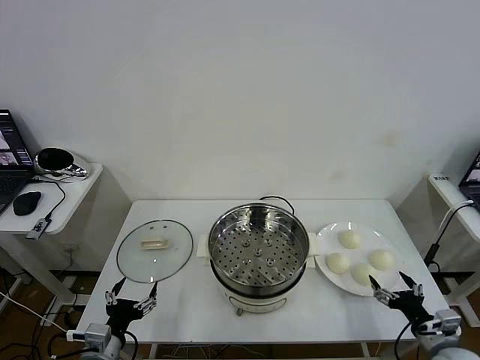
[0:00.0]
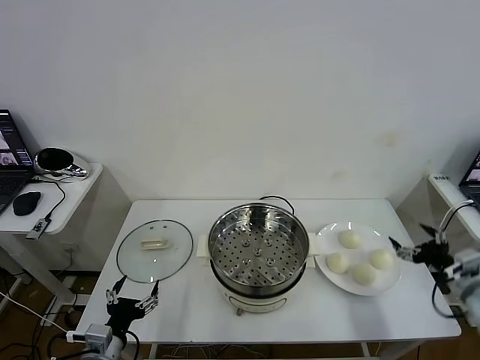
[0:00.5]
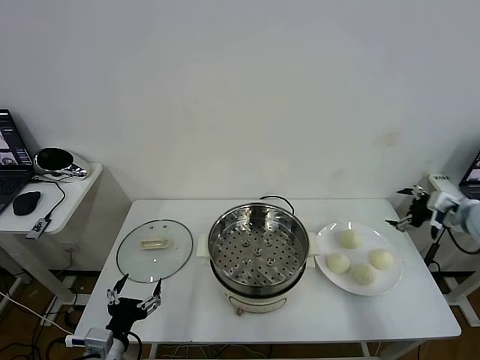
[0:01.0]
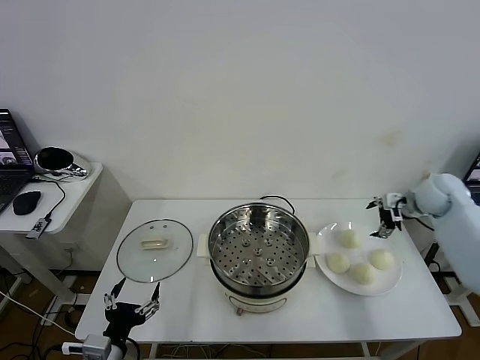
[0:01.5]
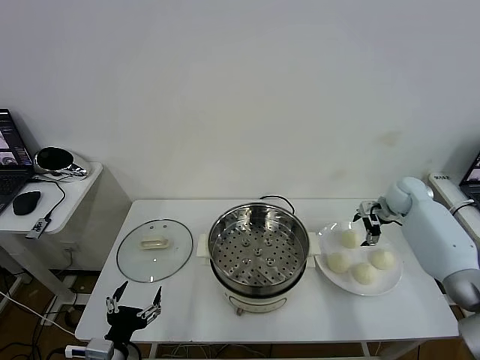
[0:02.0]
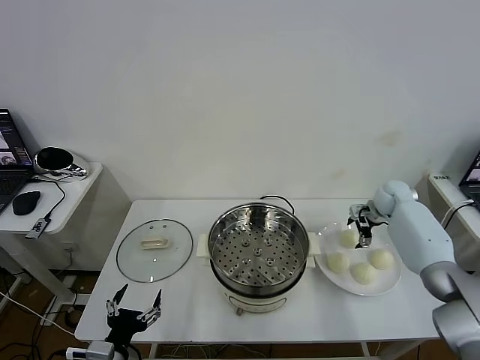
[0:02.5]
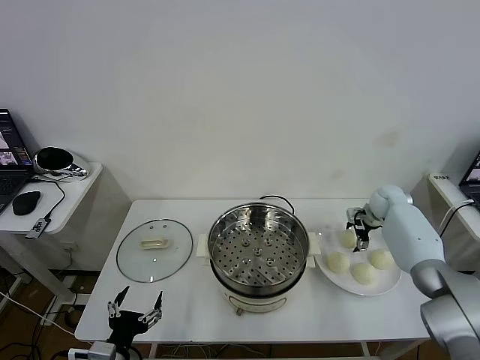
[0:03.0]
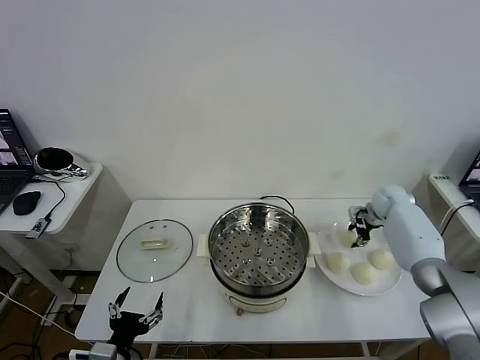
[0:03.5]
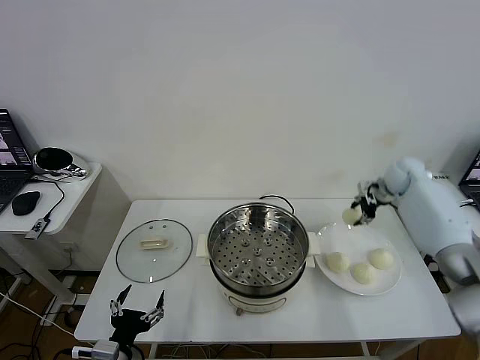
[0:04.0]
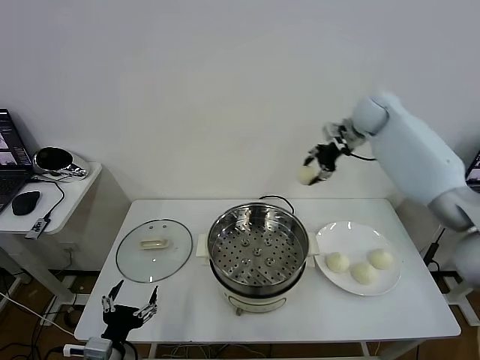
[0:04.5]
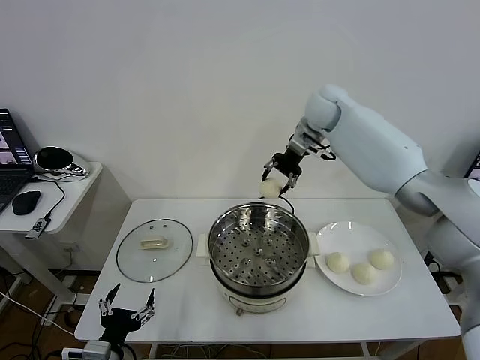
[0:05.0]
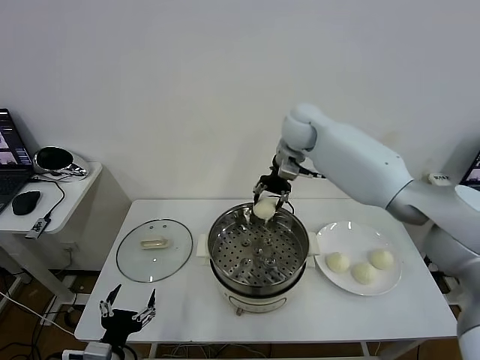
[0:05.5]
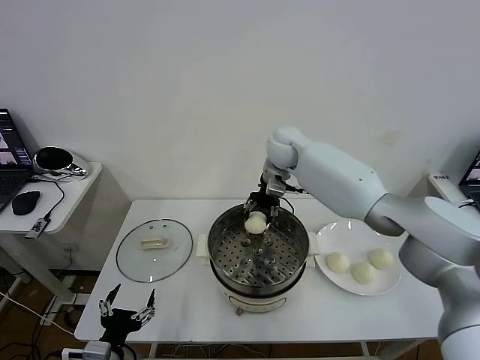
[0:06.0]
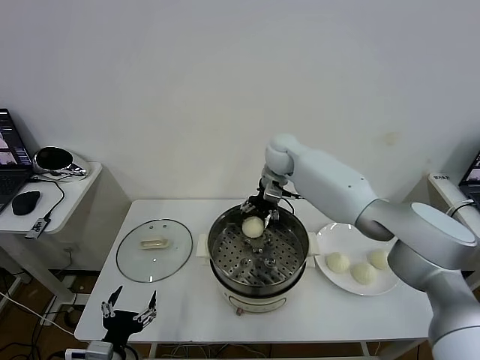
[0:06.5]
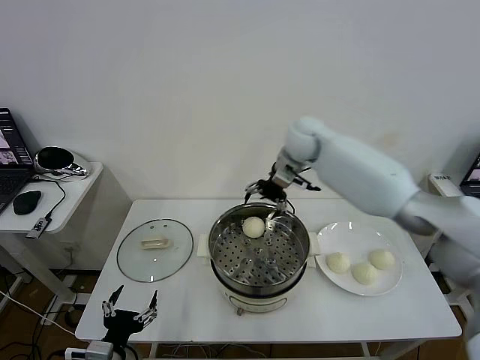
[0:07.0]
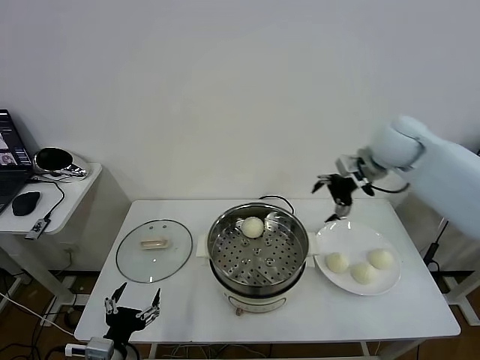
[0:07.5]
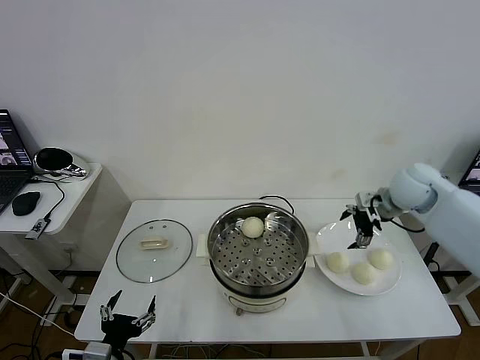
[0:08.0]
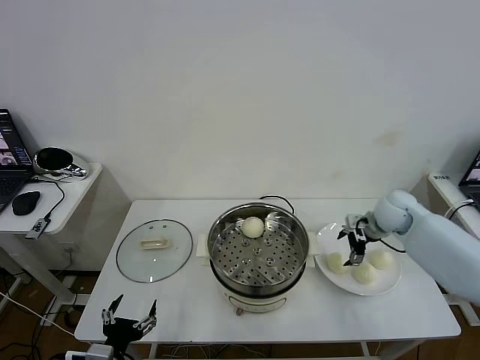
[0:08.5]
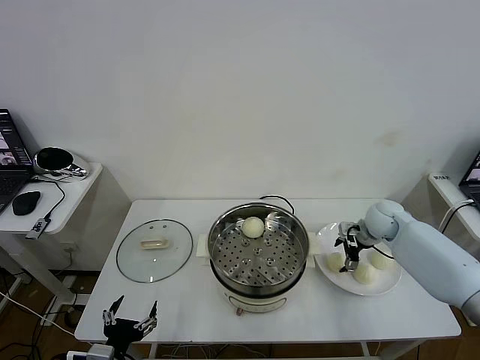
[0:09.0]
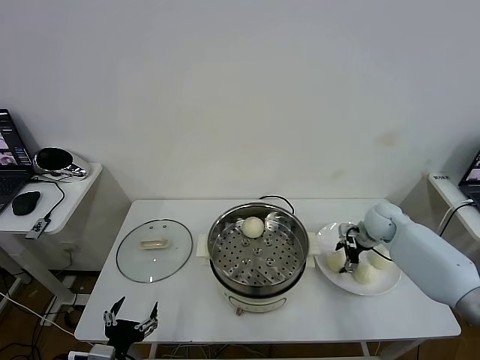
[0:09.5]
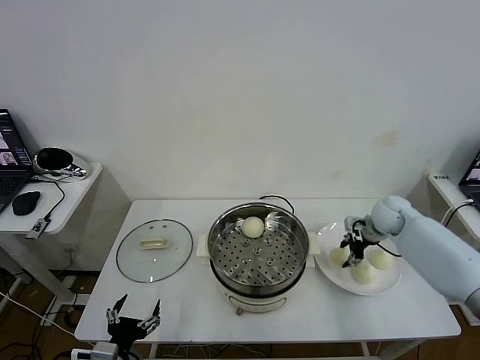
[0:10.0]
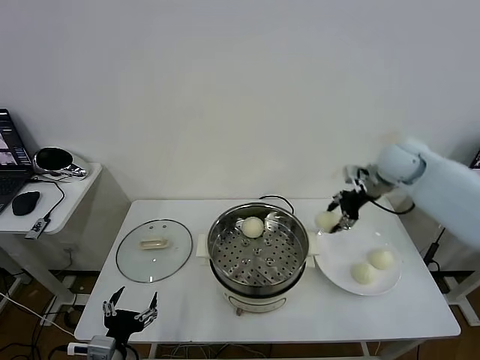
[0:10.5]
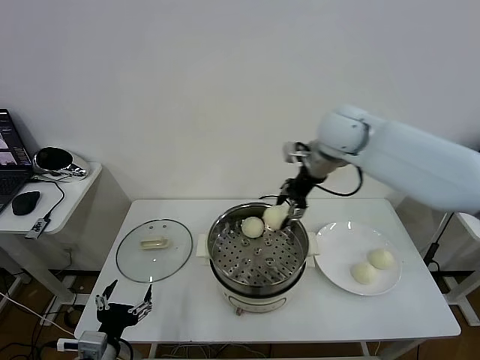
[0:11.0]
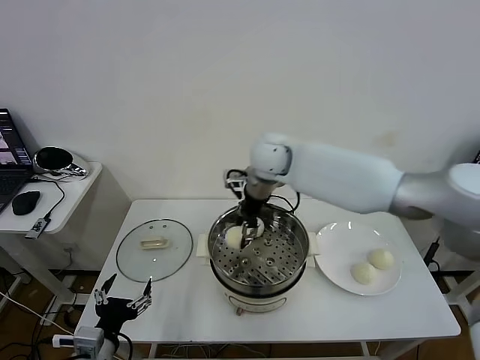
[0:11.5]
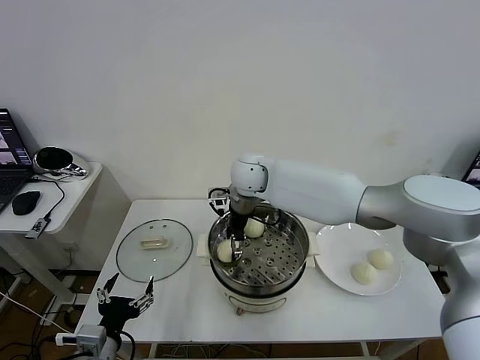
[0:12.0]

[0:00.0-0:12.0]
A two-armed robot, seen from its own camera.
Task of the whole recording: take steamed baozi put them in steamer then cover it.
Step, 0:00.0 to 0:03.5: Grasp the baozi in the plate with right gripper.
Step, 0:04.0 to 0:06.5: Place the baozi on the steamer with right gripper.
Step, 0:07.0 to 0:09.5: Grasp the baozi in the plate with right gripper.
0:02.0 to 0:04.0: The right gripper moves upward, approximately 10 cm, and closes its fingers.
0:04.0 to 0:06.0: The right gripper heads to the left, covering roughly 30 cm.
0:06.0 to 0:08.0: The right gripper goes approximately 30 cm to the right and backward, and opens.
0:08.0 to 0:10.0: The right gripper is displaced downward by about 5 cm, and closes.
0:10.0 to 0:12.0: The right gripper goes approximately 35 cm to the left, and opens.

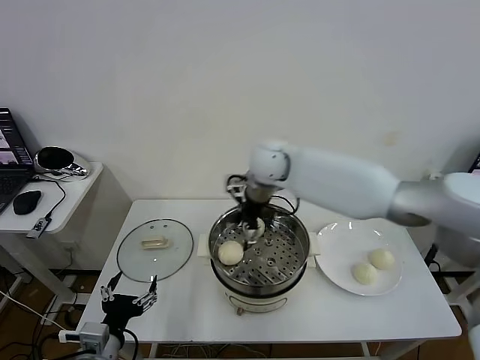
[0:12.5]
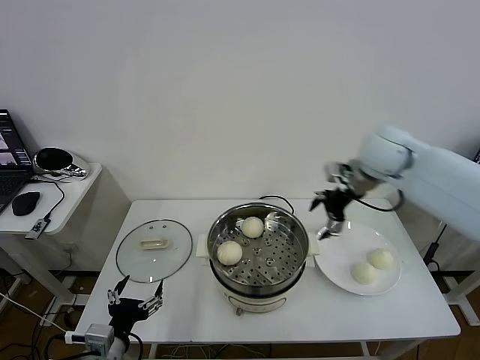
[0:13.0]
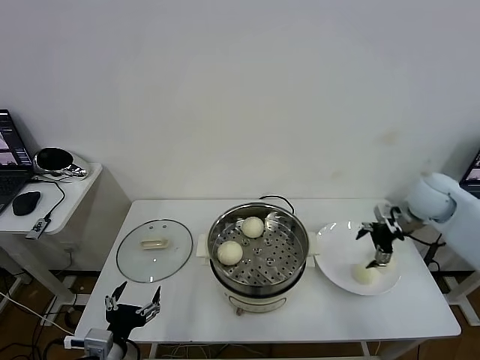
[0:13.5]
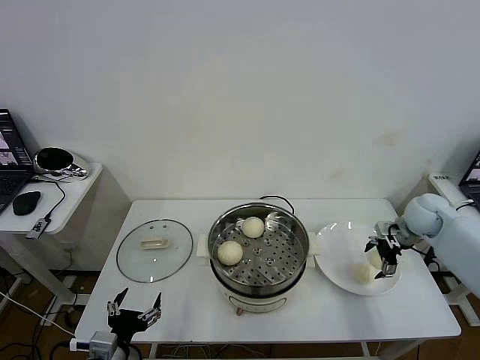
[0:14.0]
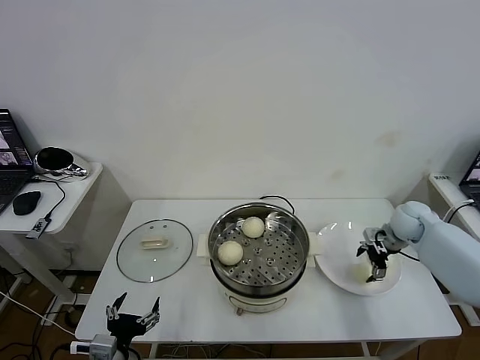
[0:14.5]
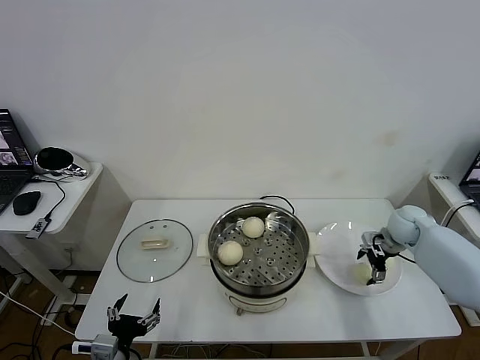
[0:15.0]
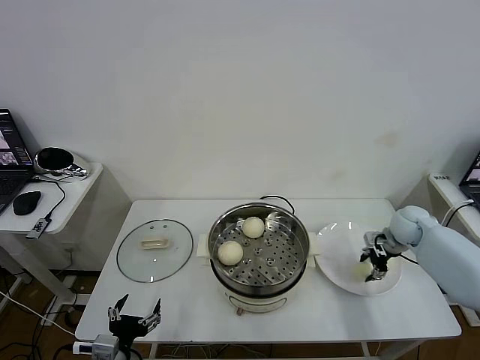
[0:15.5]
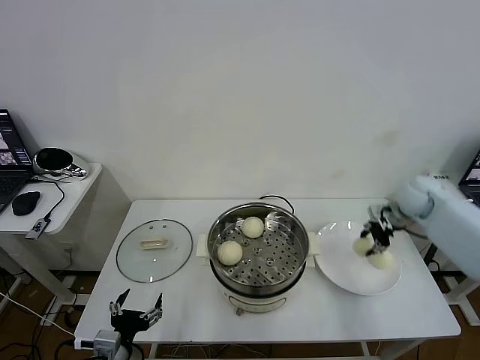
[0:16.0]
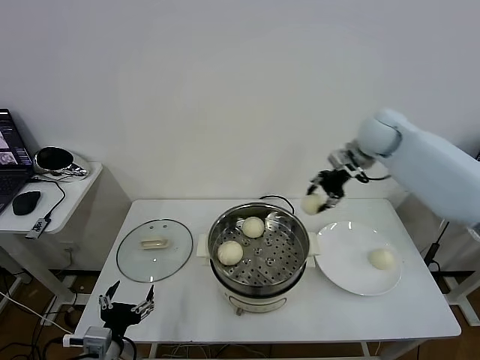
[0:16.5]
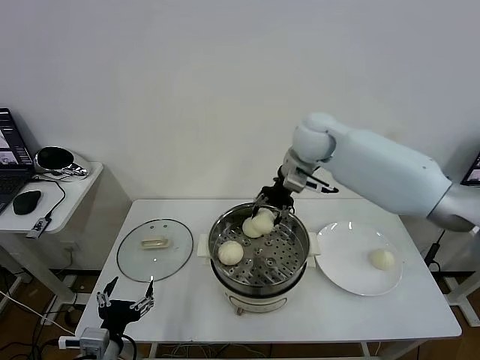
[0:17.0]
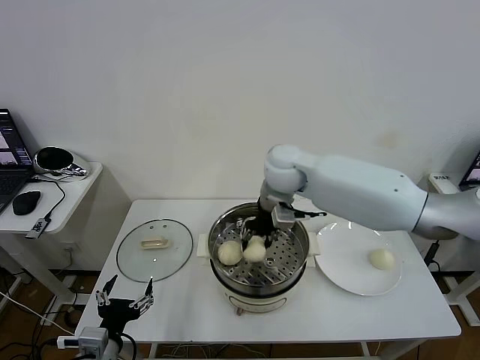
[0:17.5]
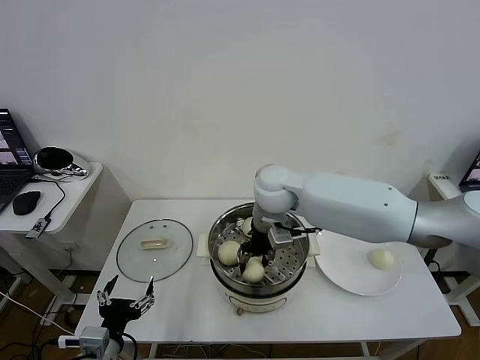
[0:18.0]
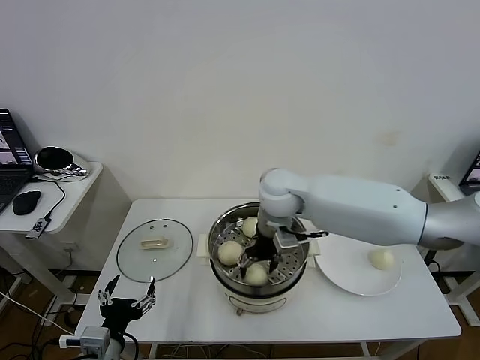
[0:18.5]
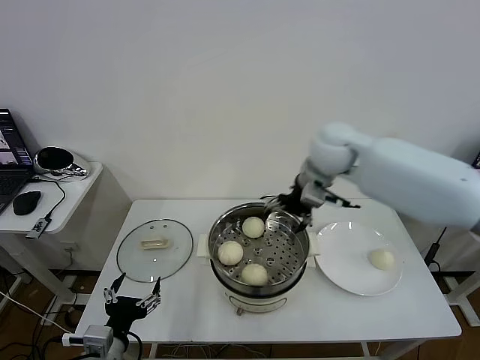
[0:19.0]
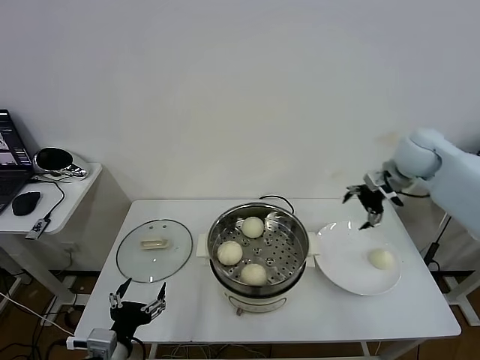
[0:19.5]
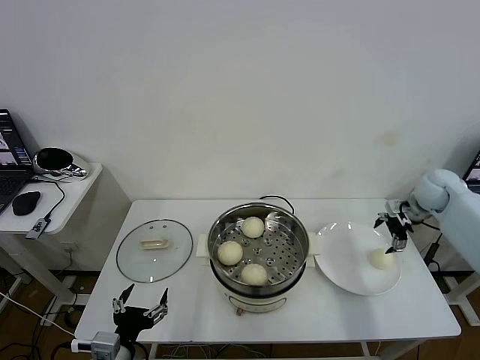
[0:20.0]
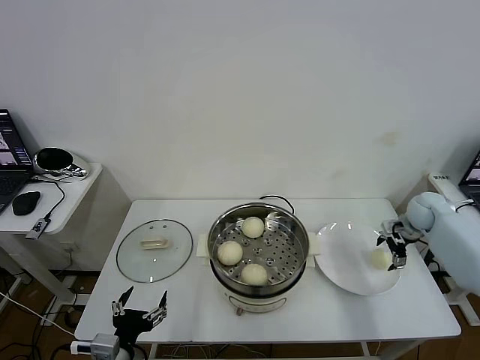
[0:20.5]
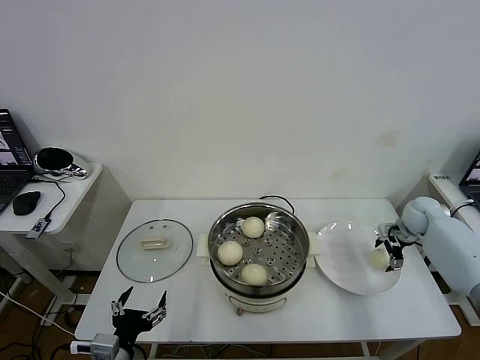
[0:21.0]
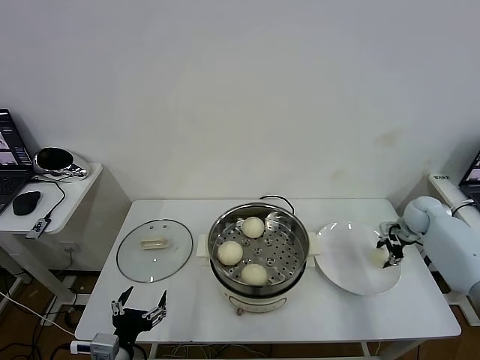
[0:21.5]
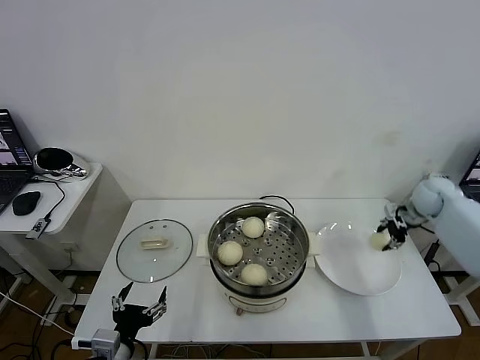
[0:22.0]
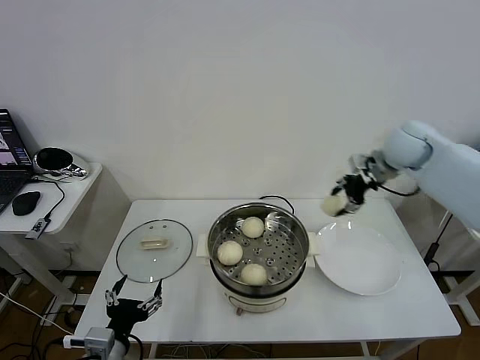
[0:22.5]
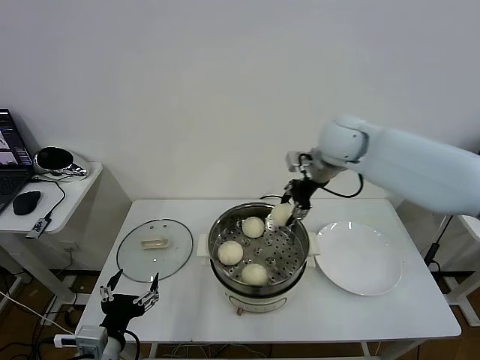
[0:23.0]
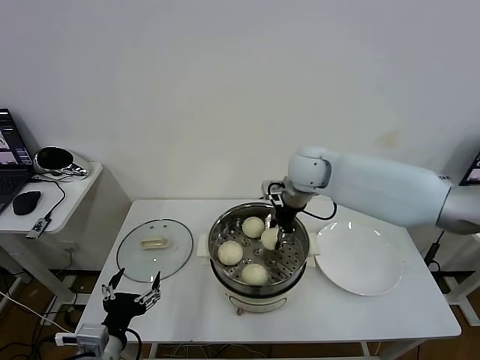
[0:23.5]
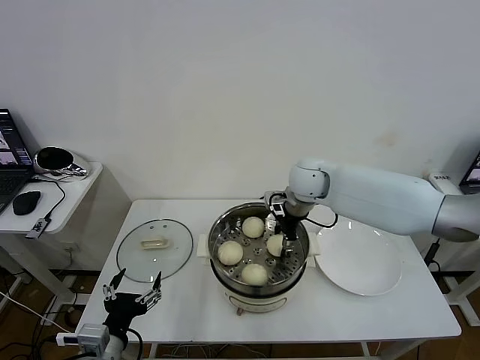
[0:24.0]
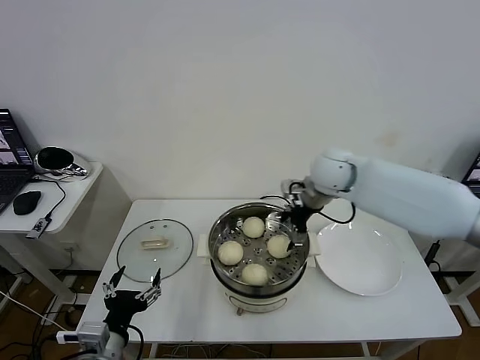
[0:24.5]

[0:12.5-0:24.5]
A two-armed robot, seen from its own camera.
Task of the whole recording: take steamed baozi put them in steamer then cover it.
Step, 0:12.5 to 0:15.5: Grasp the baozi in the plate with right gripper.
Step, 0:16.0 to 0:18.5: Place the baozi on the steamer with right gripper.
Step, 0:19.0 to 0:21.5: Grasp the baozi in the plate with right gripper.
Step, 0:22.0 to 0:24.0: Place the baozi on the steamer with right gripper.
0:12.5 to 0:14.5: The right gripper shifts some 40 cm to the right and downward.
0:14.5 to 0:16.5: The right gripper shifts approximately 25 cm upward and to the left, and closes.
0:16.5 to 0:18.5: The right gripper travels to the left, backward and downward by roughly 25 cm, and opens.
0:18.5 to 0:20.5: The right gripper heads to the right, covering some 40 cm.
0:20.5 to 0:22.5: The right gripper goes approximately 25 cm upward and to the left, and closes.
0:22.5 to 0:24.5: The right gripper travels to the left by some 15 cm, and opens up.

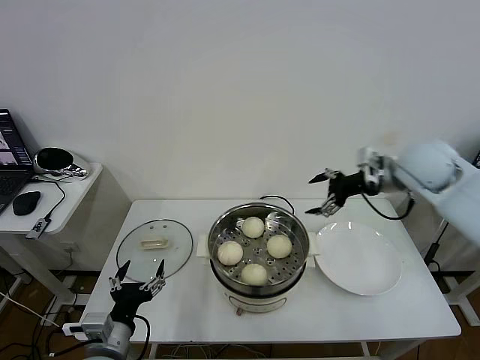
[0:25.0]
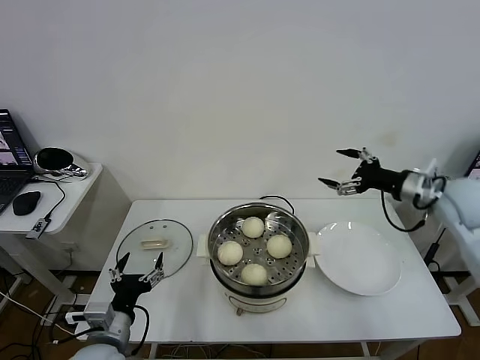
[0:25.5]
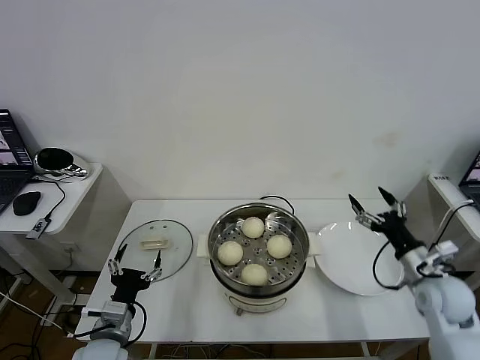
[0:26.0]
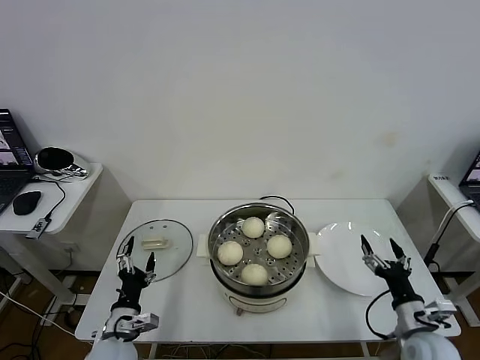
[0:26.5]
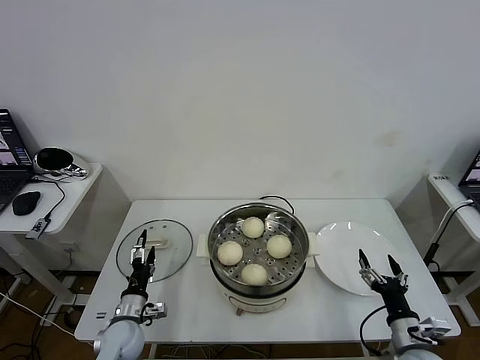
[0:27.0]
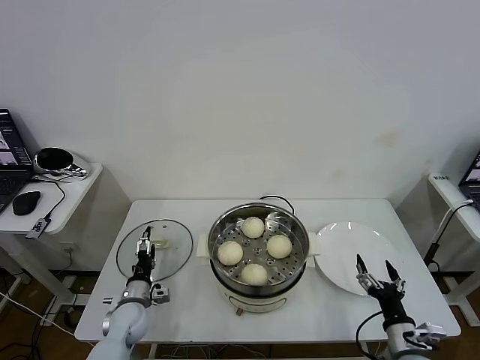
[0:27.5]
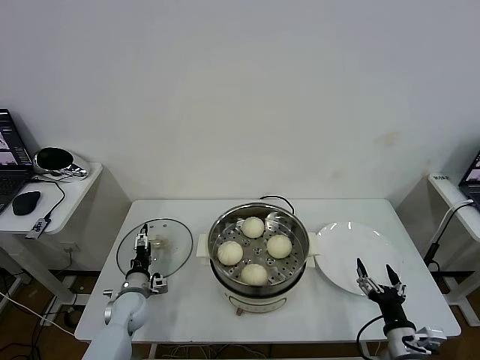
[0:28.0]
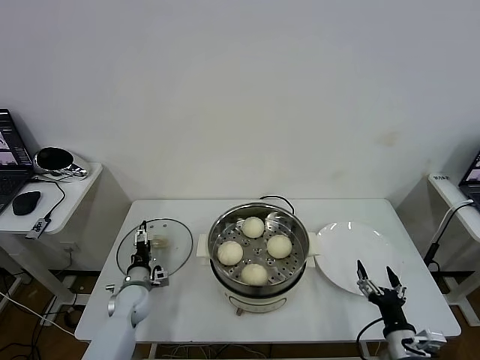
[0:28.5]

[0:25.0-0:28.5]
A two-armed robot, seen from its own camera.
Task of the whole recording: take steamed baozi put them in steamer then cover it.
0:25.0 to 0:27.0: The left gripper goes some 20 cm downward and forward. Meanwhile the right gripper goes roughly 40 cm downward and backward.
0:27.0 to 0:28.5: The left gripper is displaced forward by some 10 cm.
